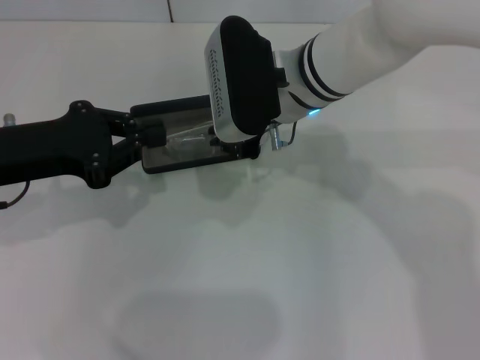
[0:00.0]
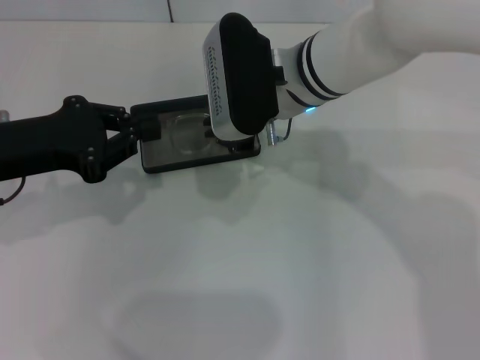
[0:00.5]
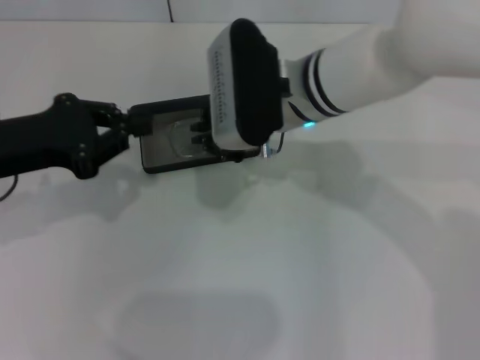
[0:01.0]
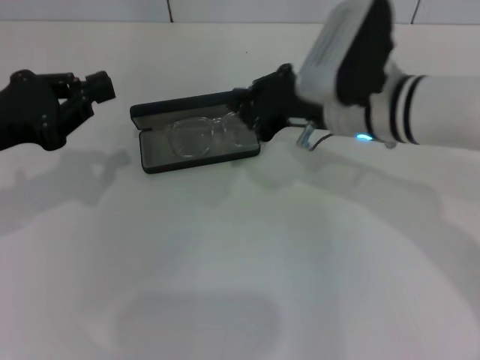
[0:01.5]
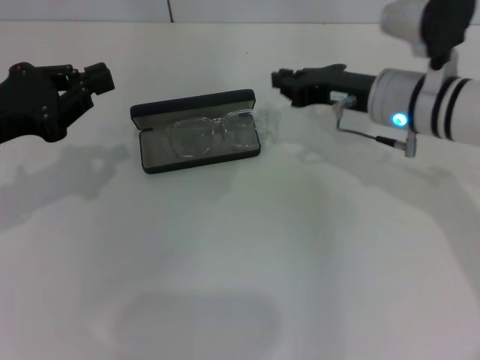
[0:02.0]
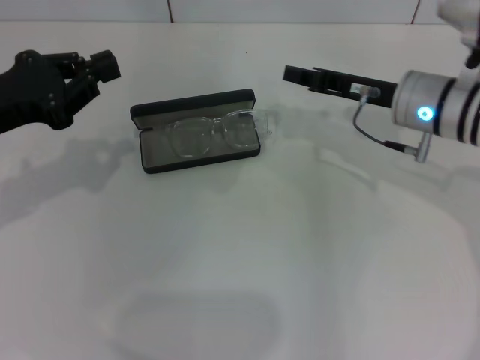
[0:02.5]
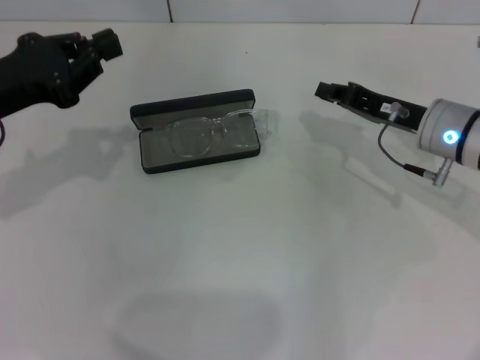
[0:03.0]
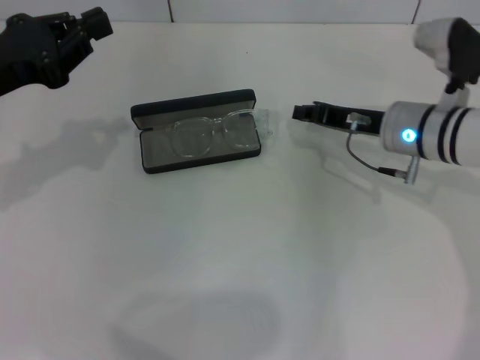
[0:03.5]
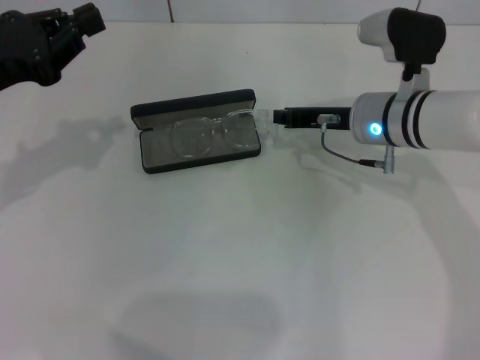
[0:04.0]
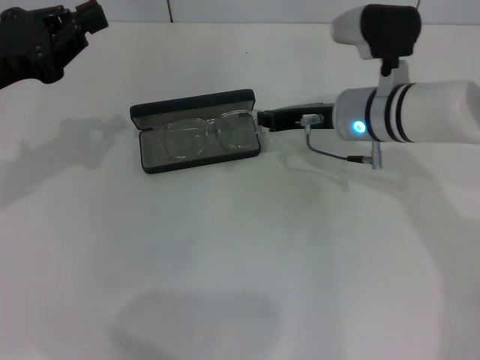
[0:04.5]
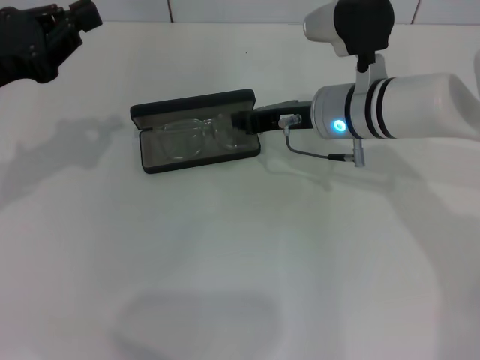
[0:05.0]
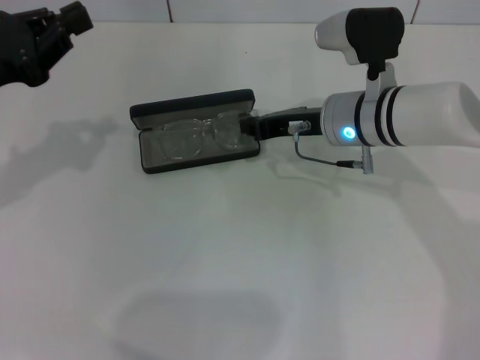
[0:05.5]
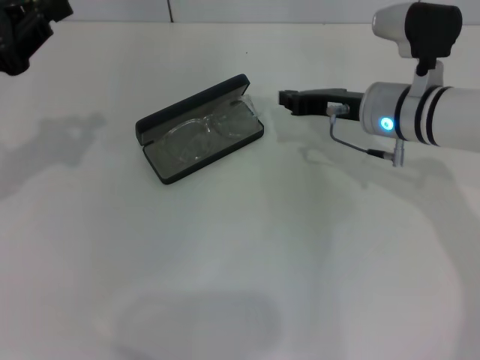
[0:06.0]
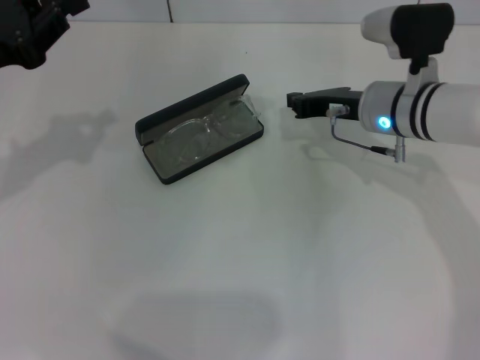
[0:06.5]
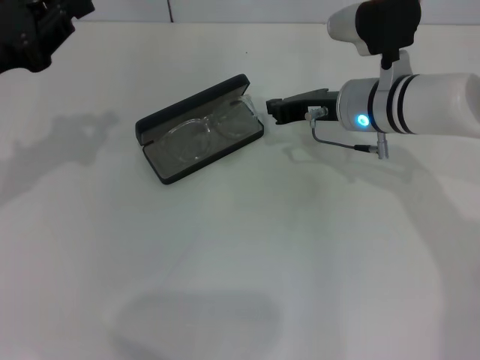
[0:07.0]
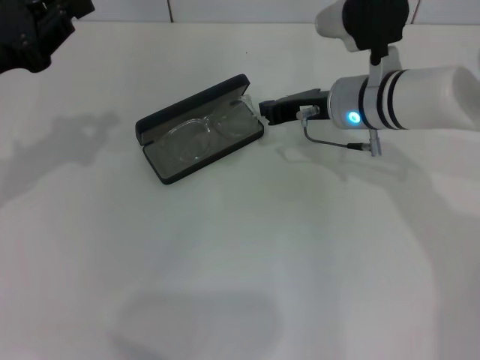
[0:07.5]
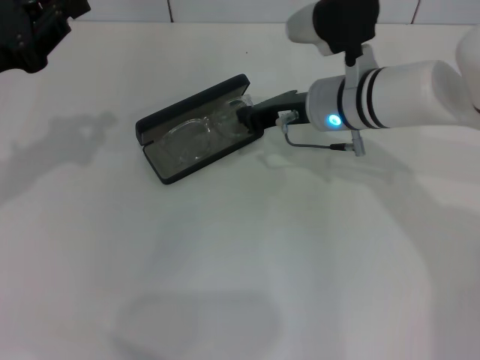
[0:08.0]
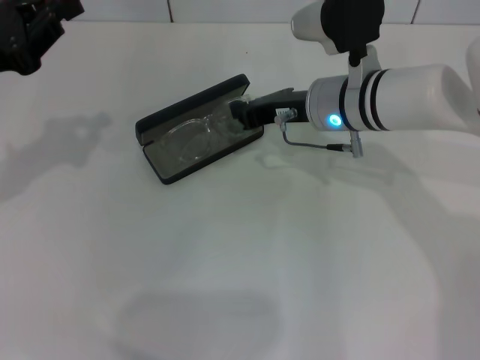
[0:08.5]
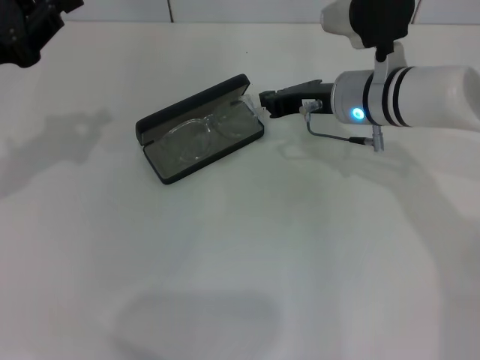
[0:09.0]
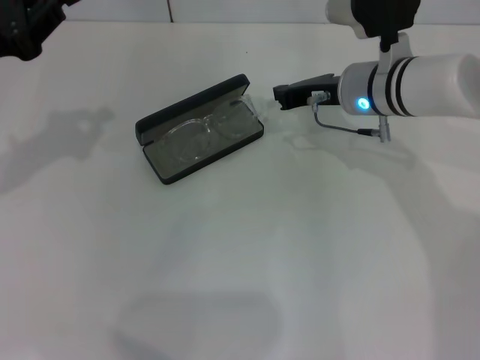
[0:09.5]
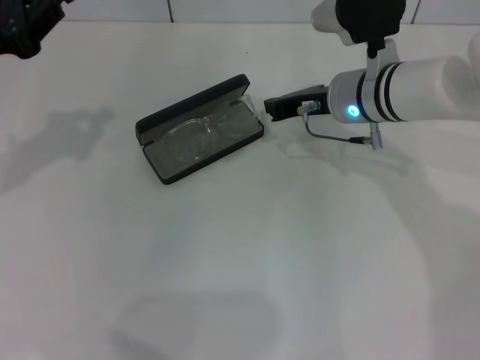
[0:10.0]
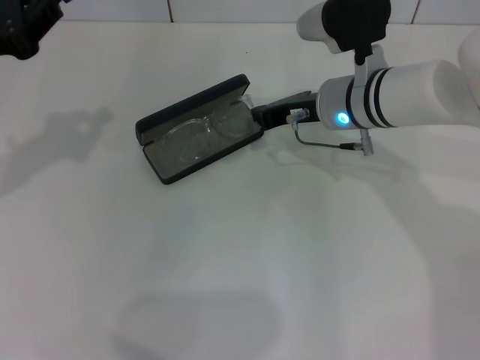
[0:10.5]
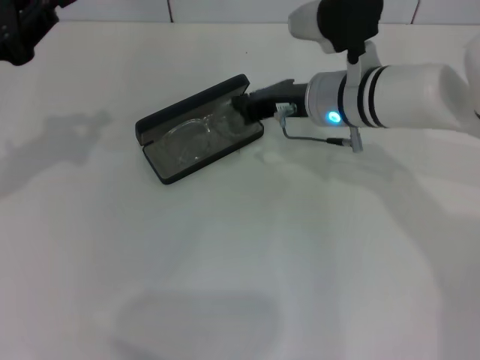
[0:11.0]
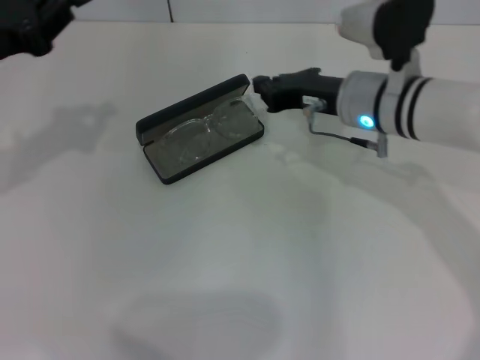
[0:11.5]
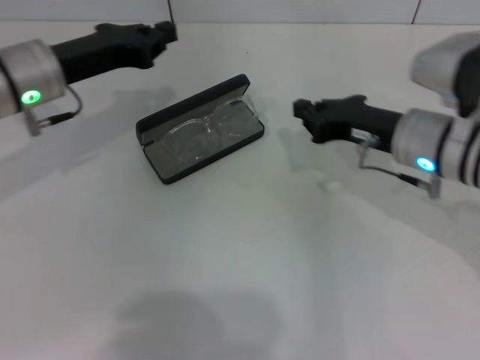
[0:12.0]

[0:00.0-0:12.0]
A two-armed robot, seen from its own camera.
0:00.0 to 0:02.0: The right gripper is displaced to the right by approximately 10 cm.
0:04.0 to 0:06.0: The grippers move only a little.
0:06.0 to 0:08.0: The right gripper goes roughly 5 cm to the left.
0:08.0 to 0:10.0: The grippers move only a little.
0:10.0 to 0:12.0: The right gripper travels backward and to the right by roughly 10 cm. Meanwhile the left gripper travels forward, to the right and downward by approximately 10 cm.

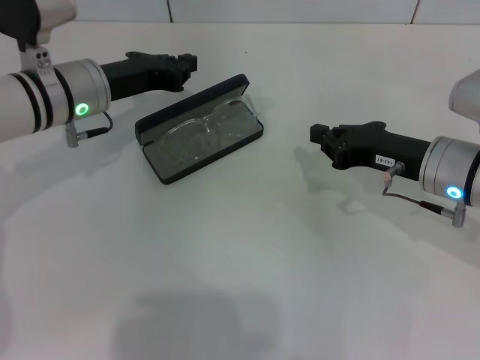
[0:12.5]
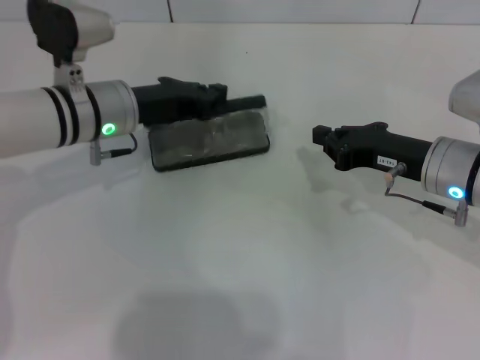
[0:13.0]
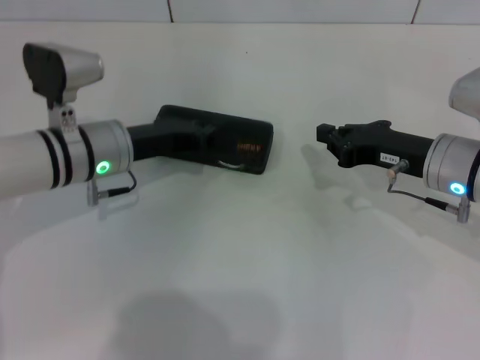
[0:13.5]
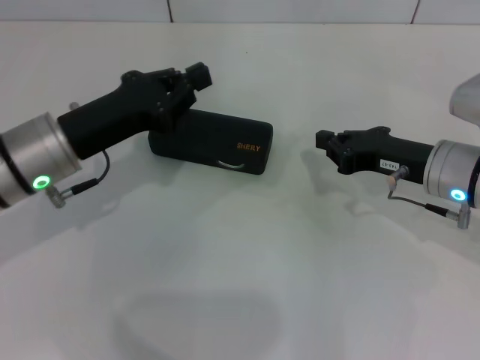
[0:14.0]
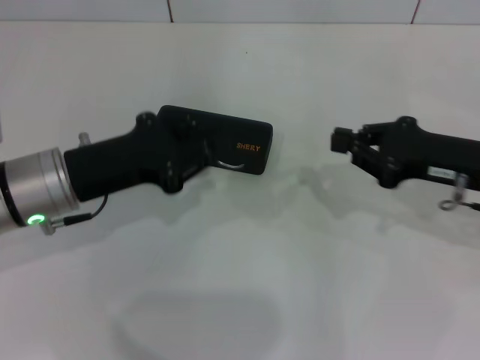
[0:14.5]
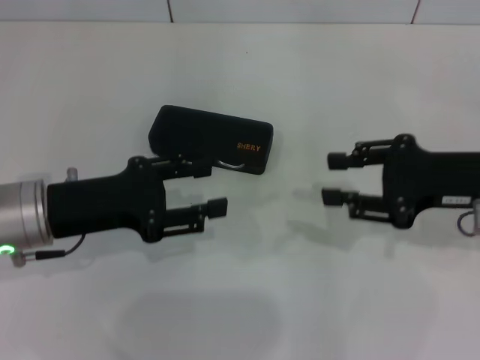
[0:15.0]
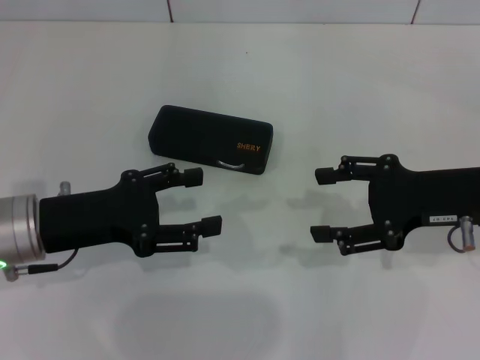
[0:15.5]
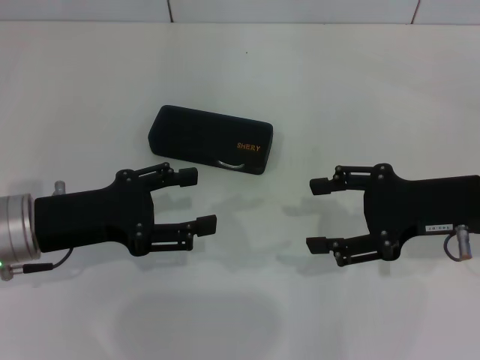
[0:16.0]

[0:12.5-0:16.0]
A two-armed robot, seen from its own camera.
Step, 0:13.0 to 0:13.5: Close the glasses case with your left hand.
0:12.5 to 0:14.5: The right gripper ends up some 5 cm from where it was. The left gripper heads backward, covering about 10 cm.
0:14.5 to 0:16.0: The left gripper opens up. The right gripper opens its fingers.
